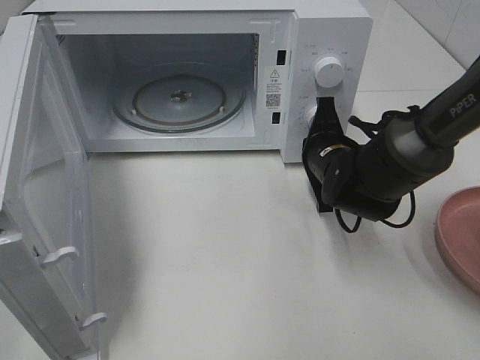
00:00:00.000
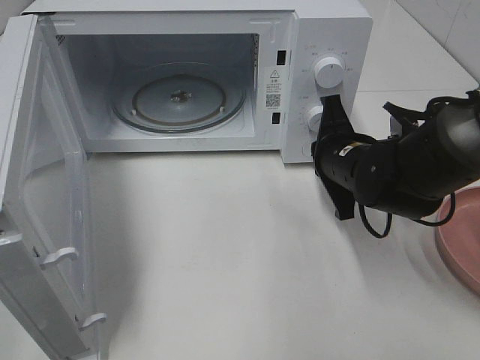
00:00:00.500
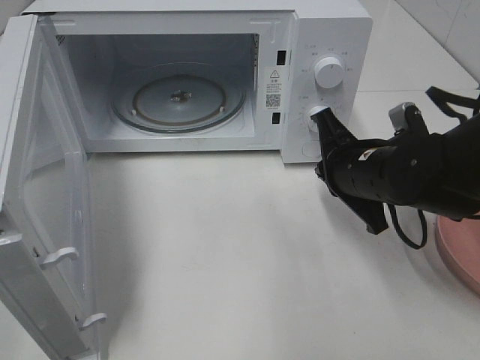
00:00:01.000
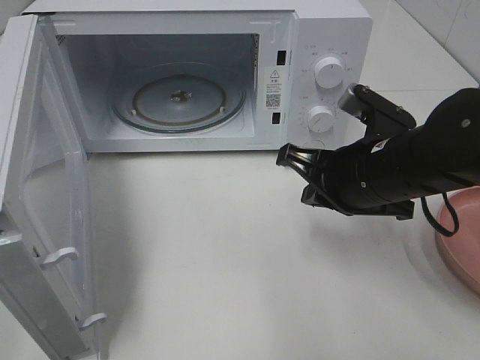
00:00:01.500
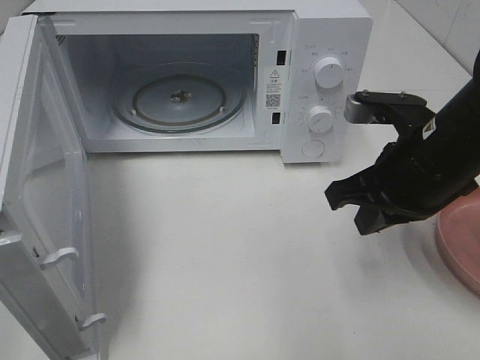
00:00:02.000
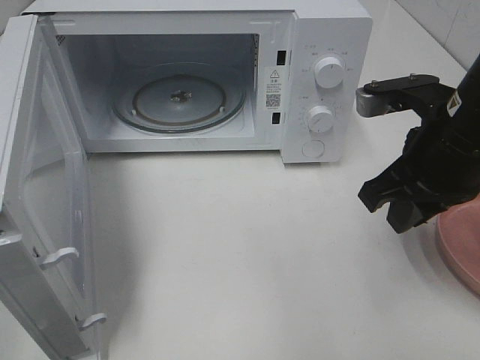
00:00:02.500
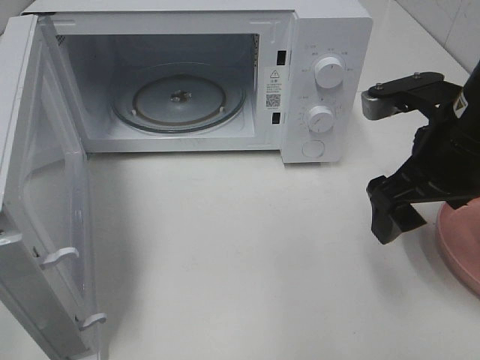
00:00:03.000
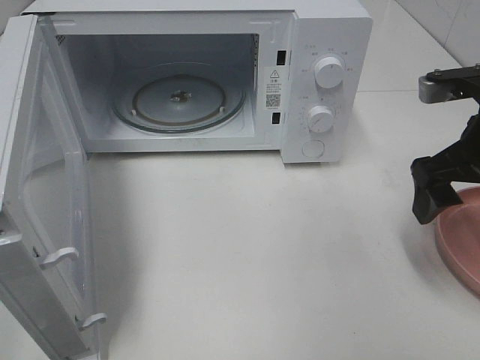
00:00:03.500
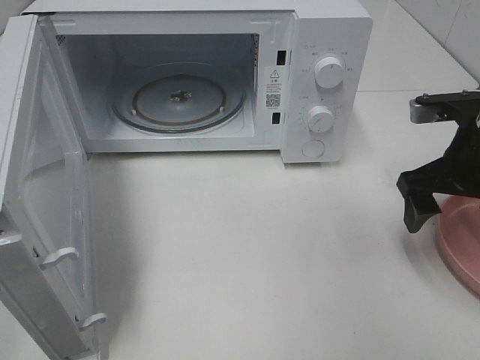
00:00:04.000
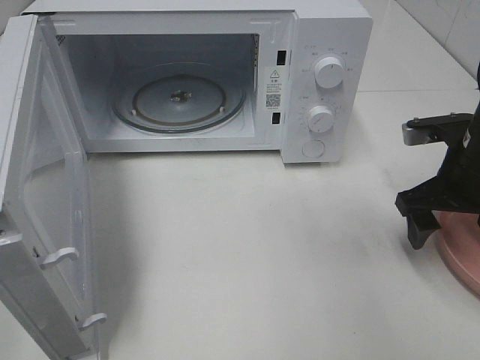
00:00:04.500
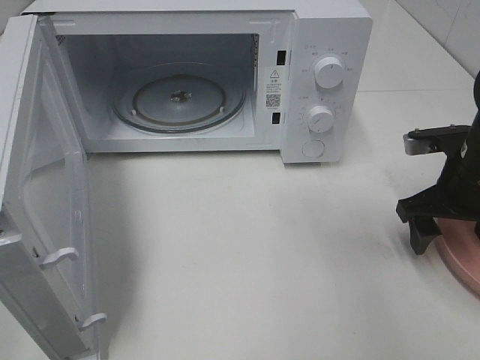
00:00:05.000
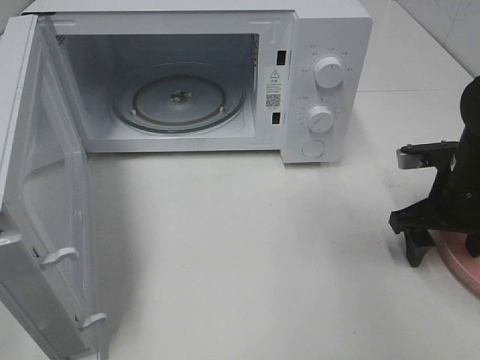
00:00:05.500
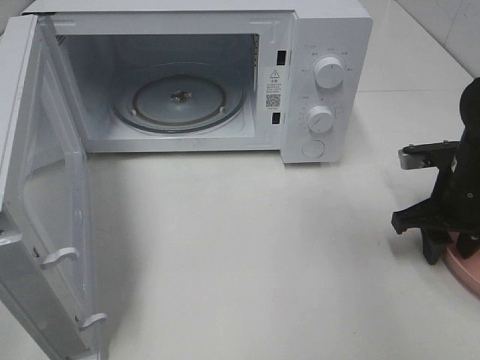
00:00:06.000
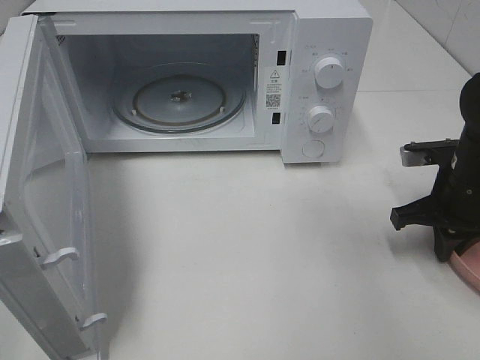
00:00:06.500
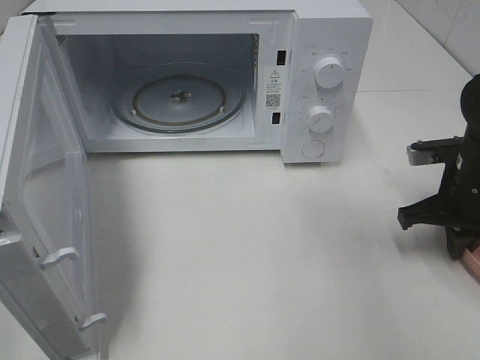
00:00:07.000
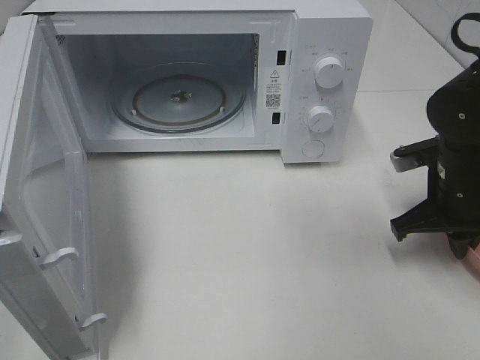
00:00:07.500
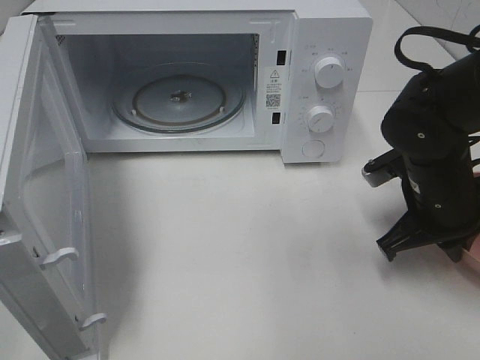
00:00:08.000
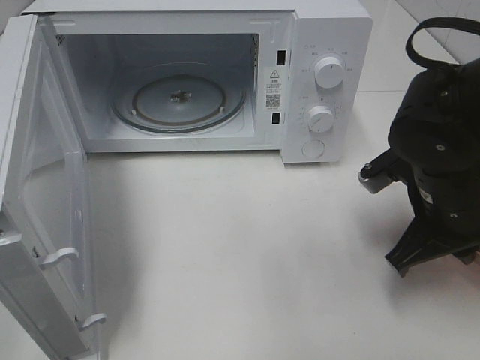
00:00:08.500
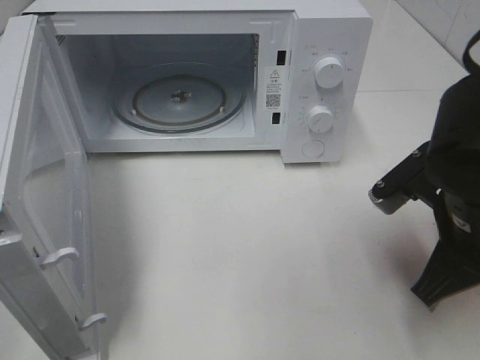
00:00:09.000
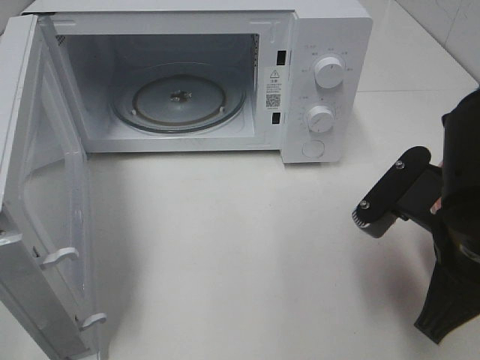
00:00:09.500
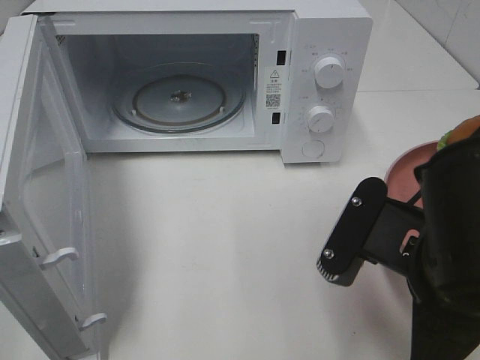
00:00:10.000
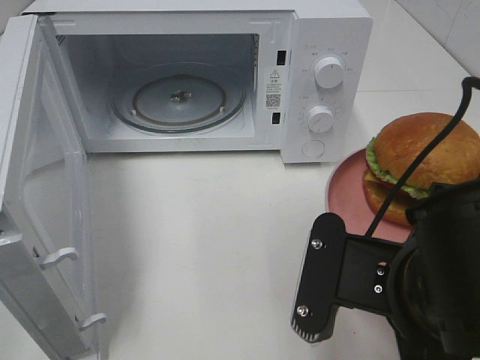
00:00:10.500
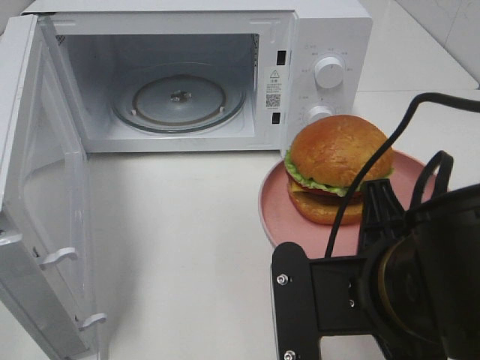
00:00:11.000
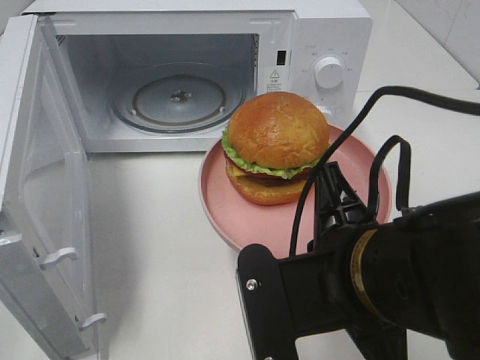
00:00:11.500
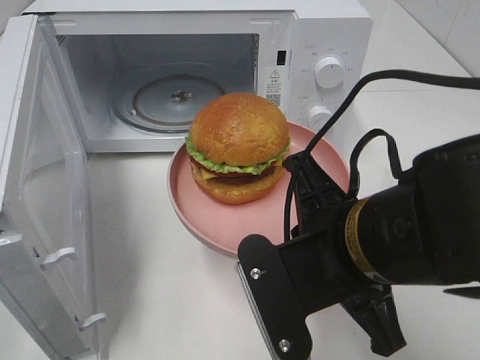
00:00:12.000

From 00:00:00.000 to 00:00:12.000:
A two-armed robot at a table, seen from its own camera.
Task of the whole recording: Heat the burger.
Step, from 00:00:00.500 to 00:00:06.000: Right hand: grab the plate with the hamburger.
From 00:00:00.000 to 00:00:02.000: The right gripper goes about 15 cm upward and backward.
From 00:00:02.000 to 00:00:04.000: The right gripper shifts some 5 cm to the right, and opens its fingers.
From 00:00:04.000 to 00:00:06.000: The right gripper is displaced downward by approximately 5 cm, and closes up.
From 00:00:06.000 to 00:00:08.000: The right gripper moves to the left, about 5 cm, and closes its fingers.
From 00:00:08.000 to 00:00:10.000: The right gripper shifts some 20 cm backward, to the left and upward.
From 00:00:10.000 to 00:00:12.000: The right gripper changes place by roughly 5 cm.

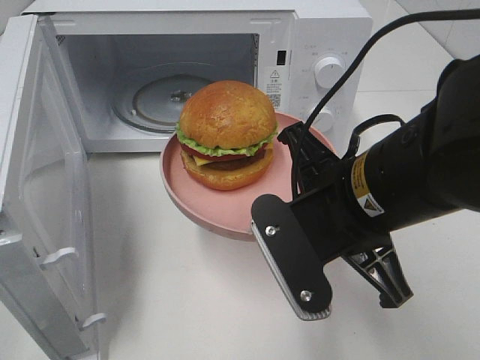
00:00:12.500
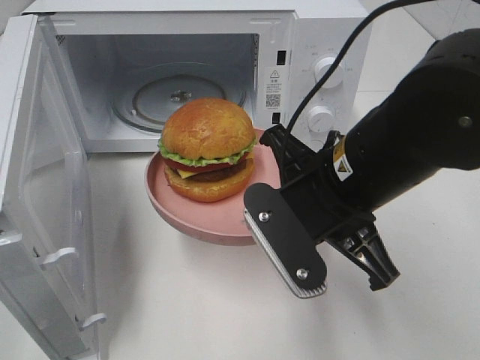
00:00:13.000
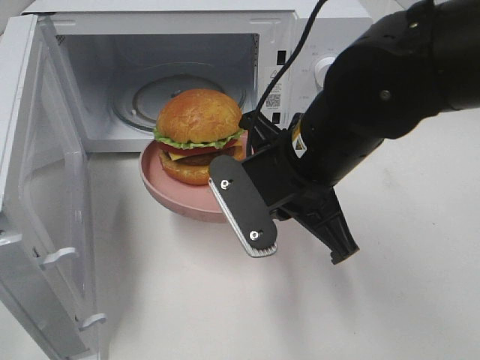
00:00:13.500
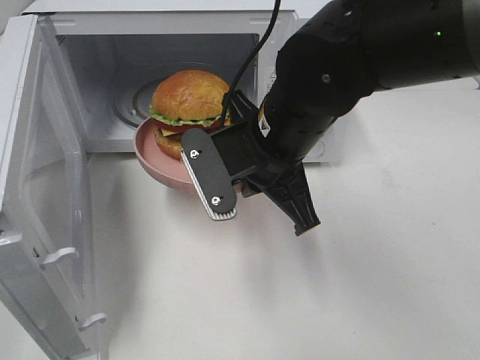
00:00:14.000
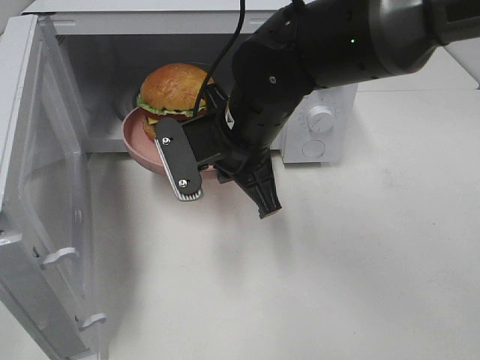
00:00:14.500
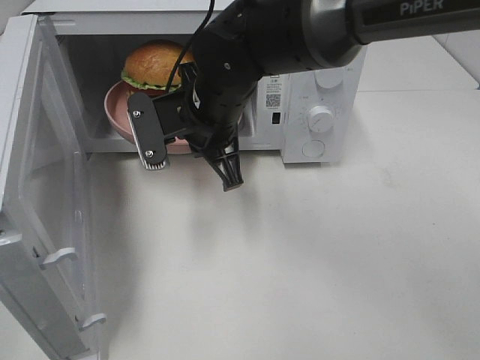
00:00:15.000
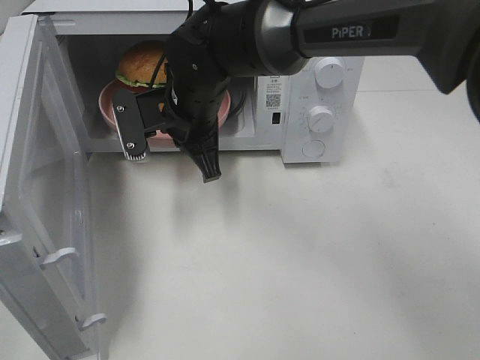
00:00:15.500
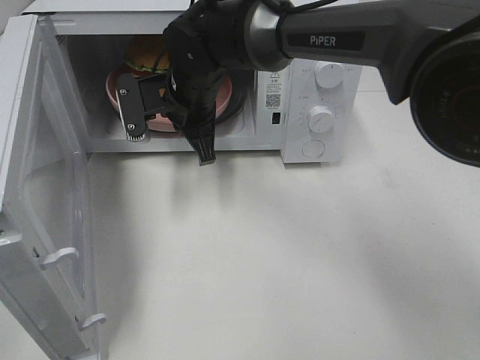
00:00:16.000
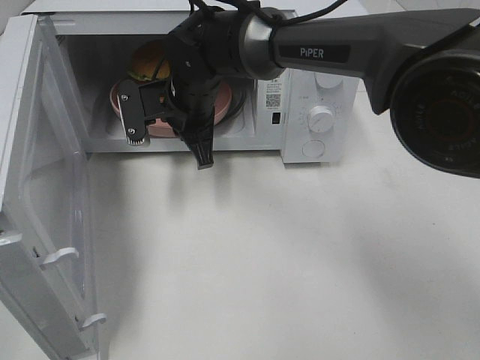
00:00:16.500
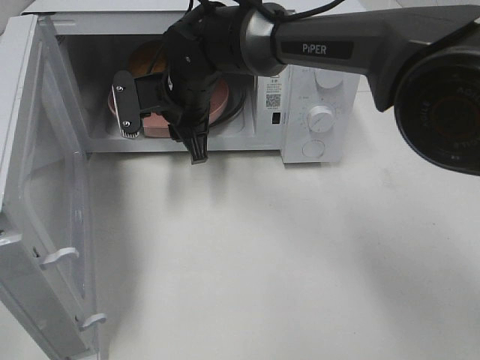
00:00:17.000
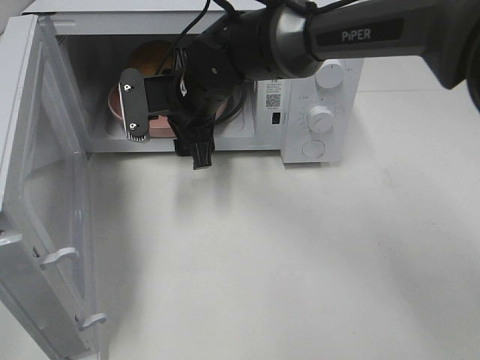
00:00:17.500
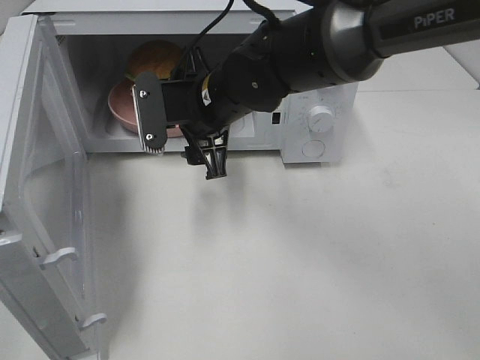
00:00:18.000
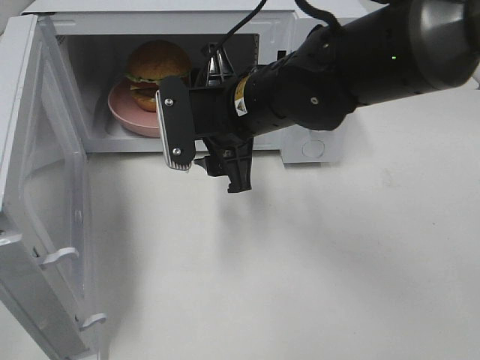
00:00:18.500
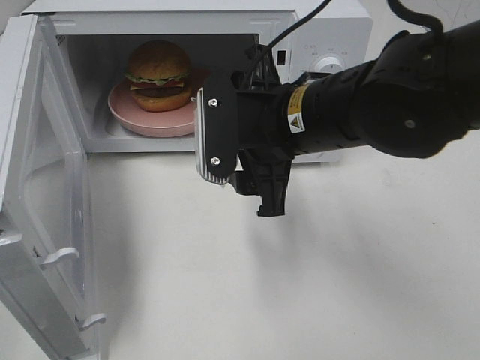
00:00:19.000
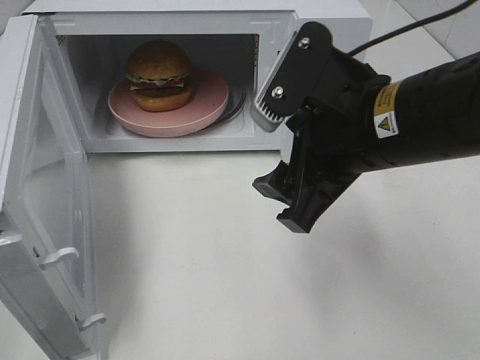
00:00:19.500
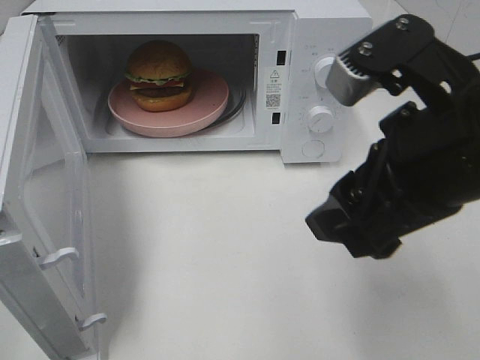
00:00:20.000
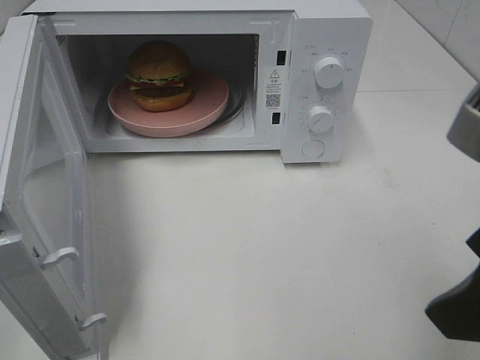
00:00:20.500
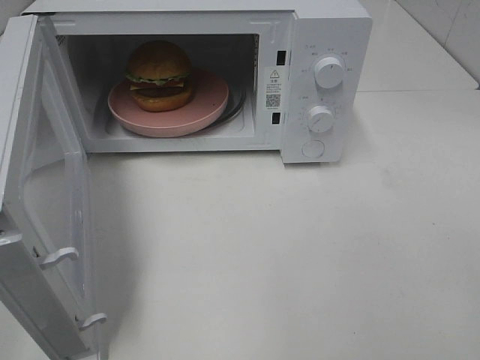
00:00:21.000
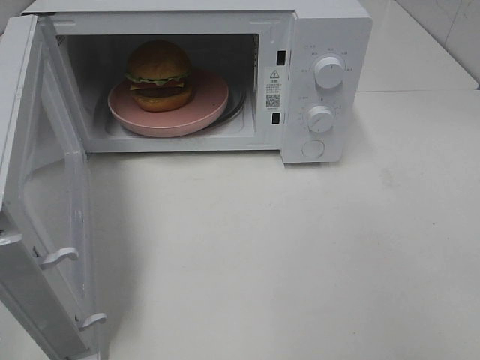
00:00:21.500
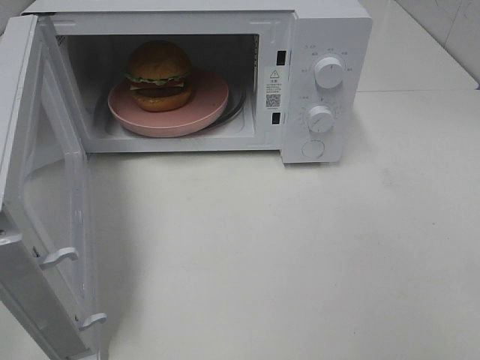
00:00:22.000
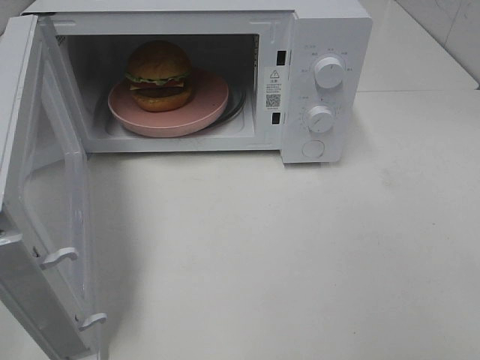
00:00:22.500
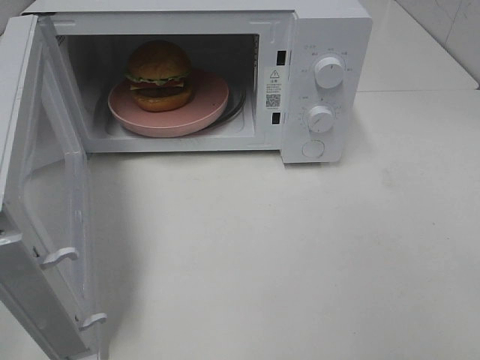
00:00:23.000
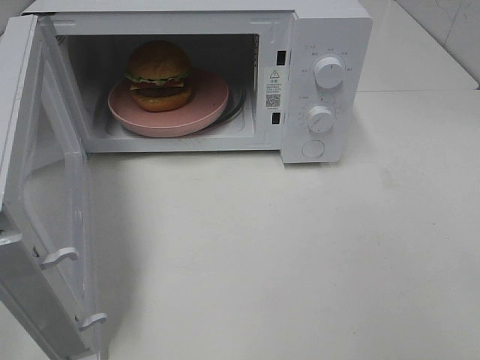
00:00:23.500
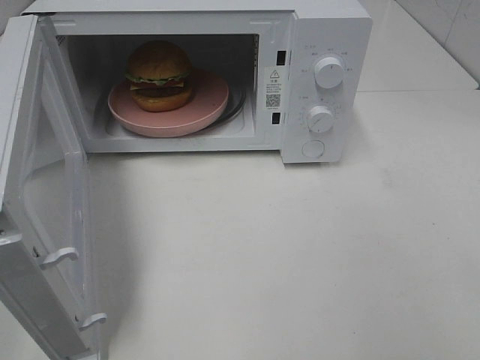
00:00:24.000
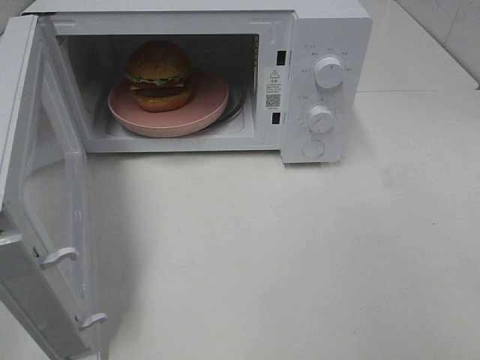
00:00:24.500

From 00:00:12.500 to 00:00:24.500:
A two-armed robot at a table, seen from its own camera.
Task of the whole recording: Heat the burger.
Step, from 00:00:12.500 to 00:00:16.500: Right hand: place the plate in the microwave.
From 00:00:12.500 to 00:00:14.500: The right gripper moves forward and to the left, some 15 cm.
From 00:00:14.500 to 00:00:16.500: The right gripper is displaced forward and to the left by some 10 cm.
From 00:00:16.500 to 00:00:18.500: The right gripper goes roughly 10 cm backward and to the right, and opens up.
From 00:00:18.500 to 00:00:20.500: The right gripper moves backward, to the right and upward, some 30 cm.
From 00:00:20.500 to 00:00:22.500: The right gripper goes approximately 15 cm backward and to the right.
From 00:00:22.500 to 00:00:24.500: Both grippers stay about where they are.

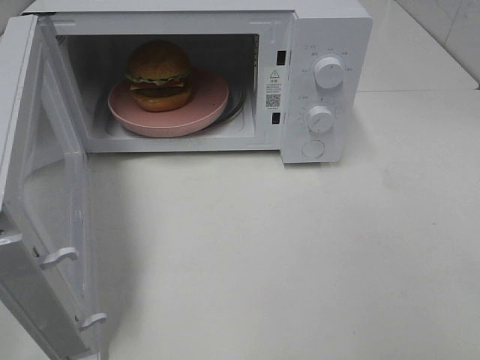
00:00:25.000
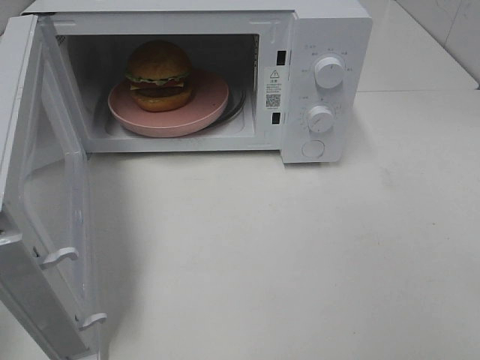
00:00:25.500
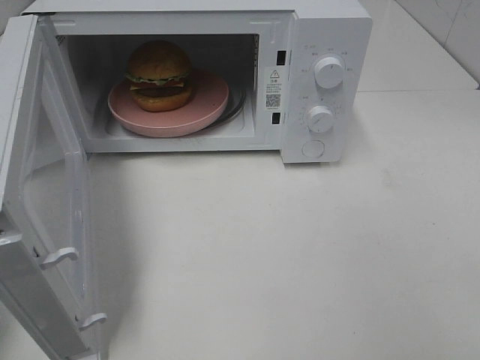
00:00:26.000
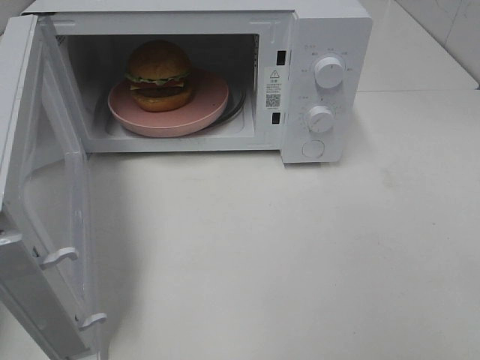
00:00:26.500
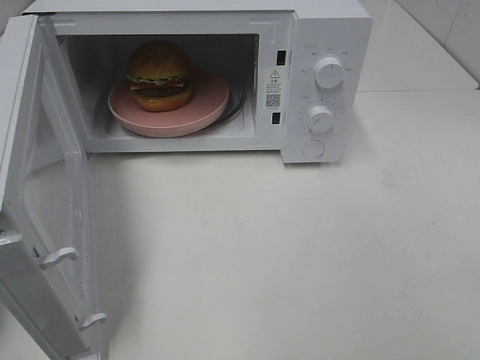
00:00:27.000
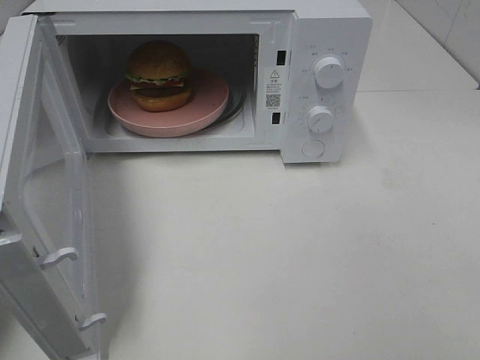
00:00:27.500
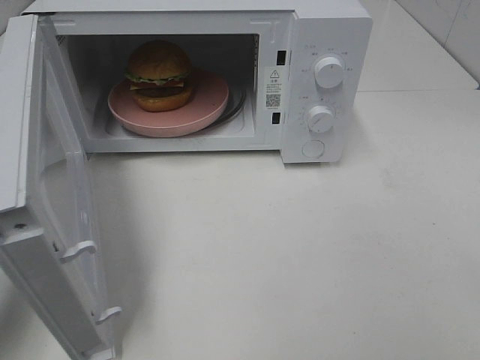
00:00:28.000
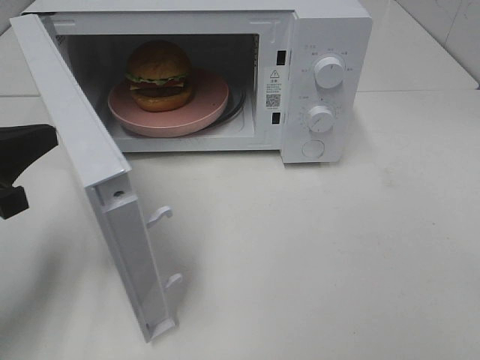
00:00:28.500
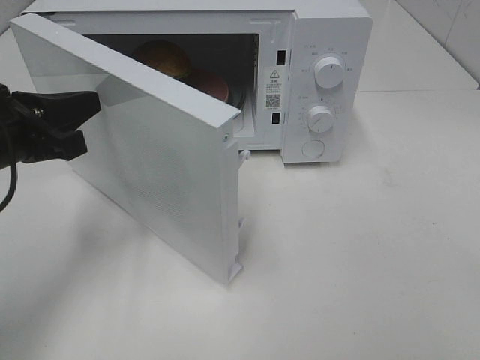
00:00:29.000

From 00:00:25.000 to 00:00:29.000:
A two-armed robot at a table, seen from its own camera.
Task of the whole recording: Heat the burger.
From 00:00:27.000 to 00:00:29.000: The left gripper shifts roughly 15 cm to the right and forward.
